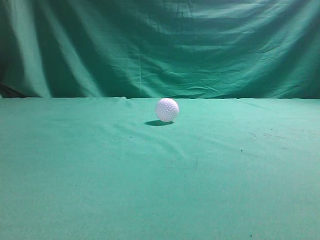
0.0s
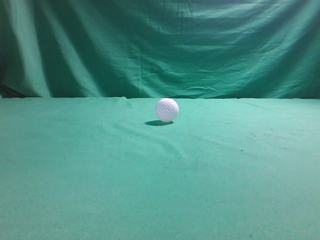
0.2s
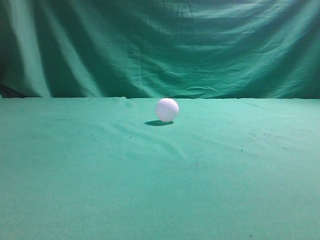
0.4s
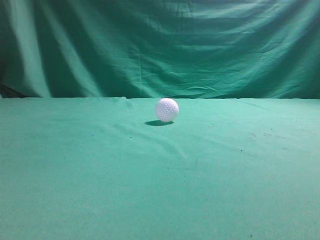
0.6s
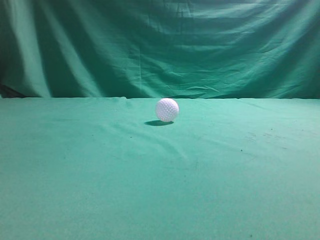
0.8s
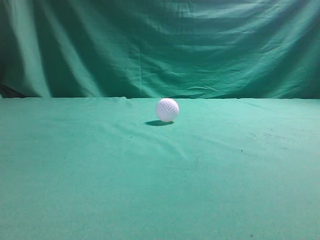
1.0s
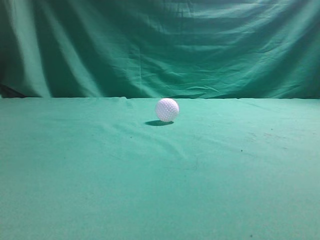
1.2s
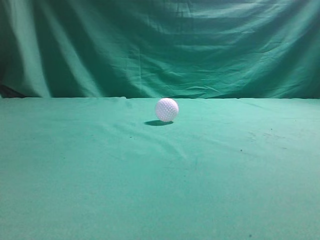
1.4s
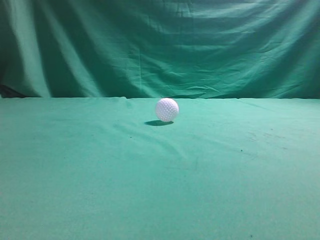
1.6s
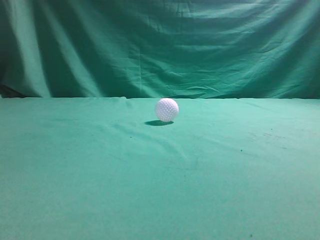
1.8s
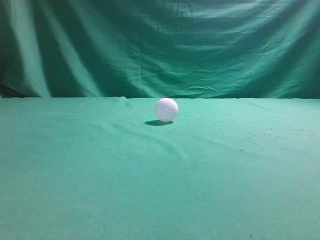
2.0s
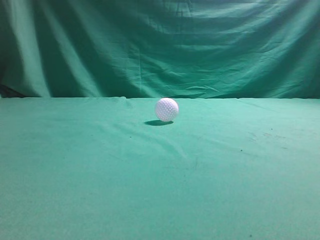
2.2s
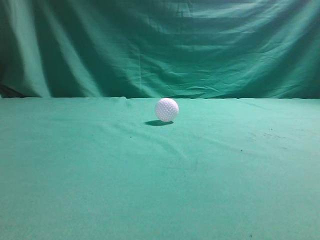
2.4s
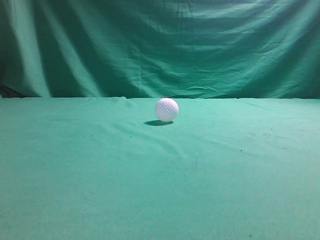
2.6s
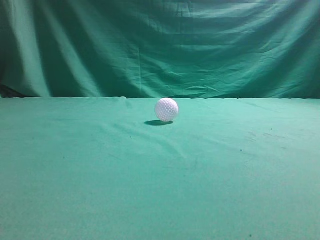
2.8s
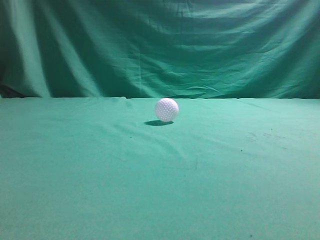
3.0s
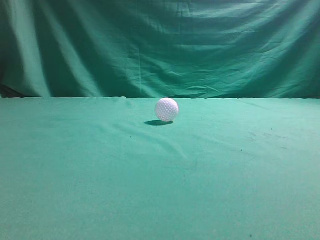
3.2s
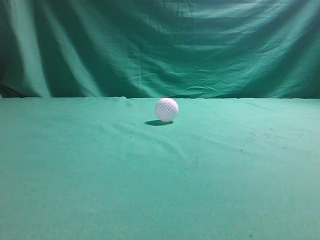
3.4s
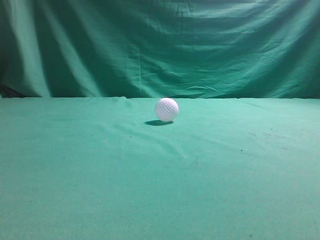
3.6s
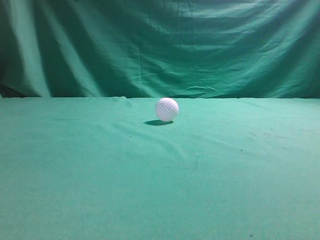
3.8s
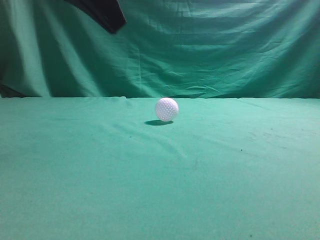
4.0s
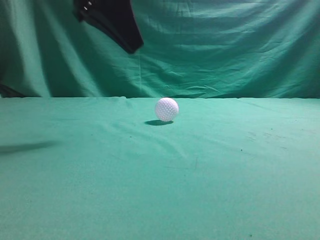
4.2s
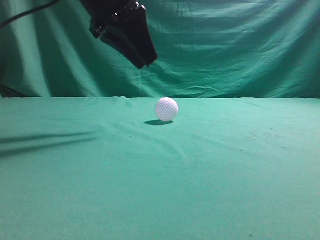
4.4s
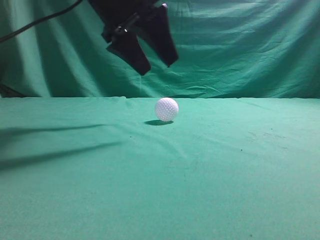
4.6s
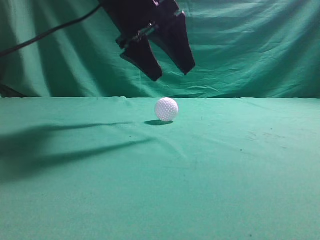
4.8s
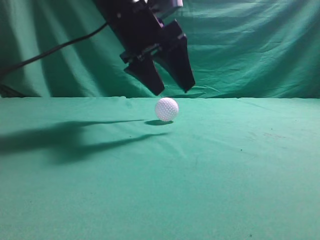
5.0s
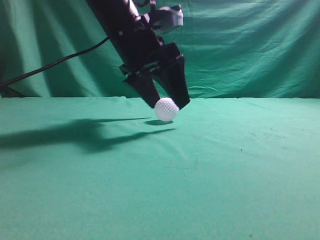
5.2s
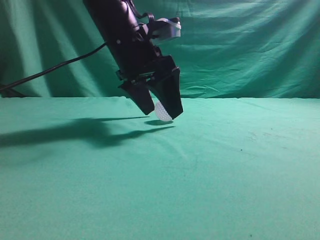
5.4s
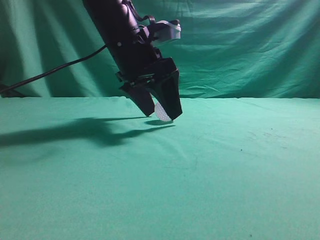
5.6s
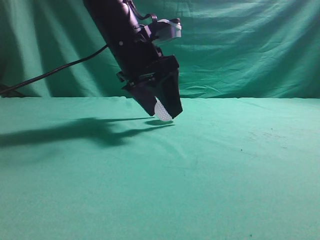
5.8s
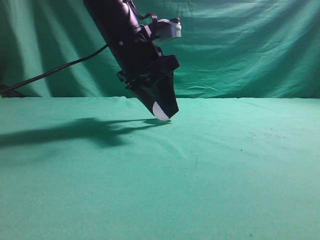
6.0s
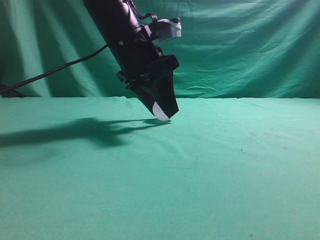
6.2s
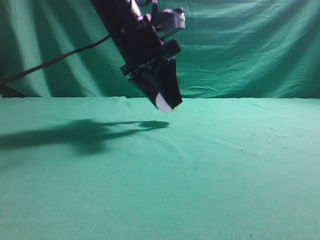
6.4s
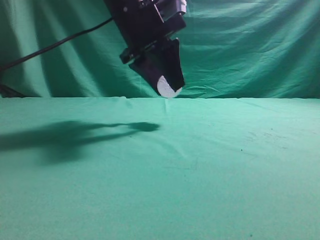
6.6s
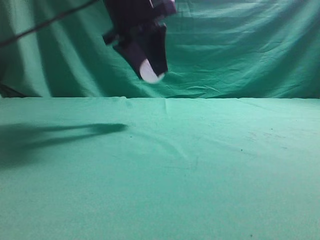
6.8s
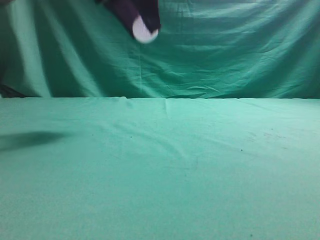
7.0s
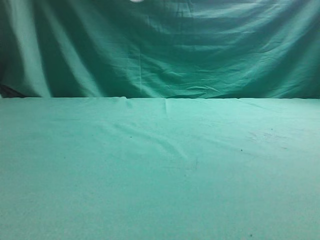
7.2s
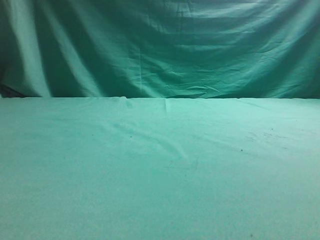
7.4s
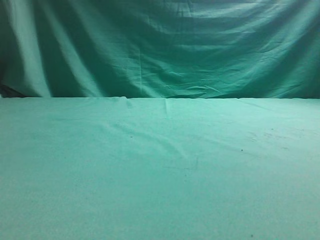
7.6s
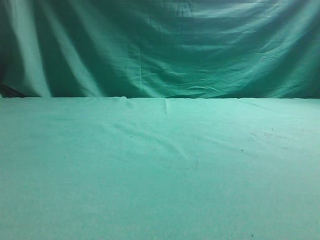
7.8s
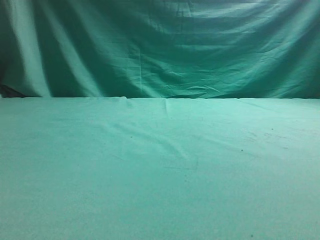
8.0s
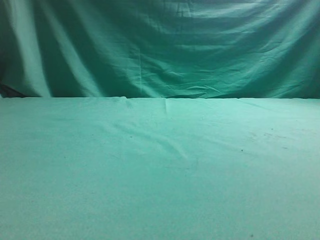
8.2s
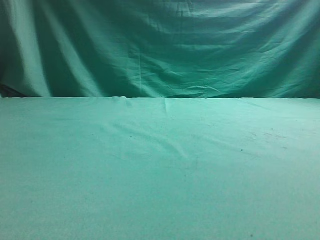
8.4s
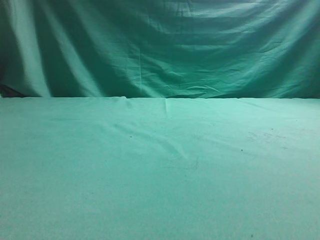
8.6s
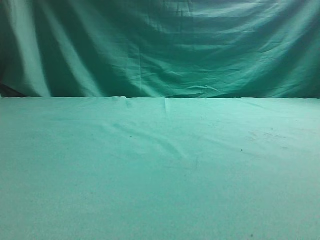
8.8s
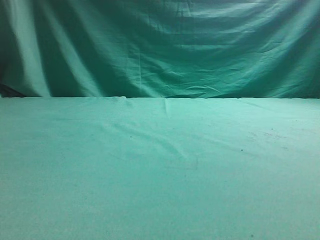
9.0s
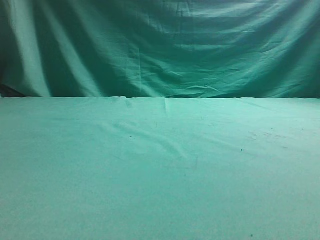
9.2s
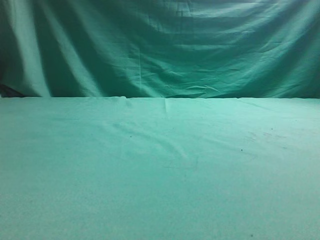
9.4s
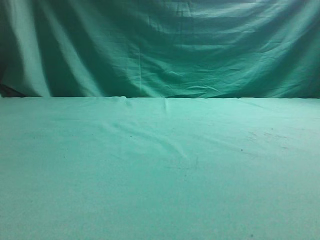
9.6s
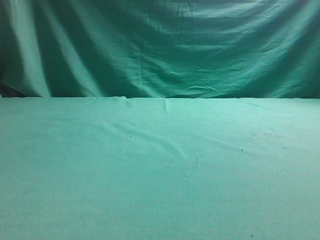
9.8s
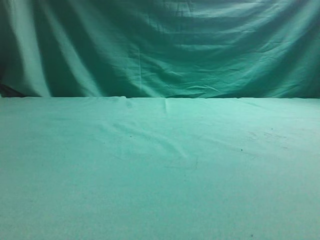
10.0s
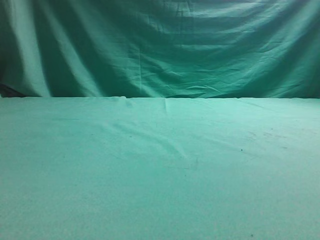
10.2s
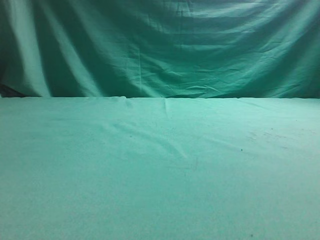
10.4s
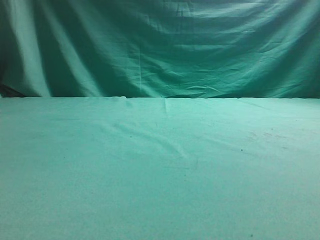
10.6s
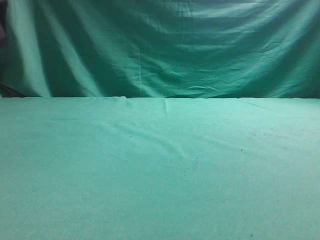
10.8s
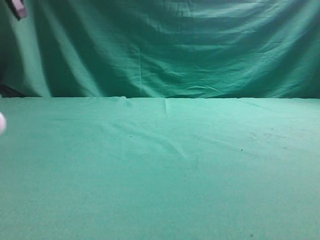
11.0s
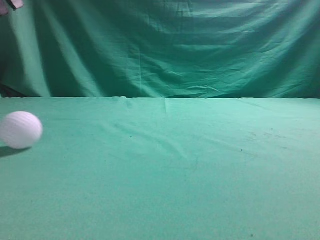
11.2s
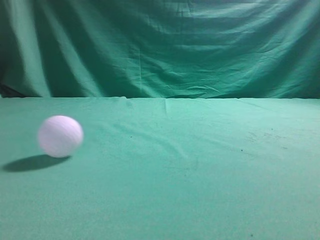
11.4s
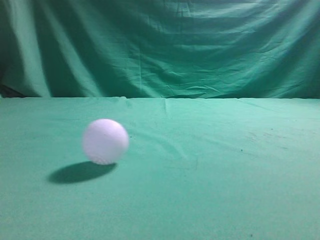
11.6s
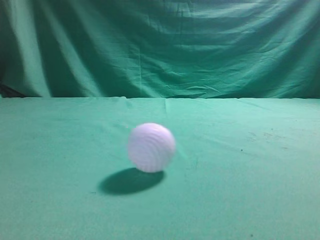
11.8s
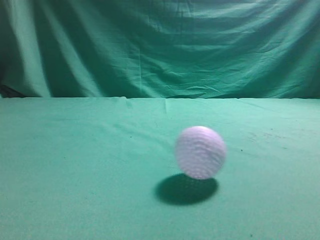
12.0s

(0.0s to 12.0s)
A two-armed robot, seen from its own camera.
Task of the whole recording: pick up the ball and place it on the plate, then pick up the ball from the plate and put it in the center of the table.
Step, 0.0s - 6.4s: Grab the spherical object with your left arm.
Step, 6.8s - 10.4s: Place the sphere on the white object.
3.0s - 4.4s: The left gripper moves forward and to the right, some 35 cm.
4.4s - 6.0s: The left gripper travels downward by approximately 5 cm, and opens, then closes again.
6.0s - 7.6s: The left gripper goes some 25 cm upward, to the left and backward.
10.4s - 12.0s: The right gripper changes place by about 5 cm. Meanwhile the left gripper moves upward and backward, approximately 20 cm, and closes.

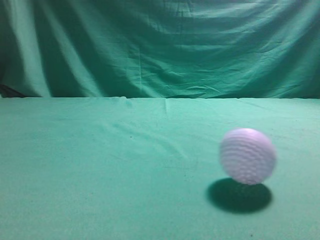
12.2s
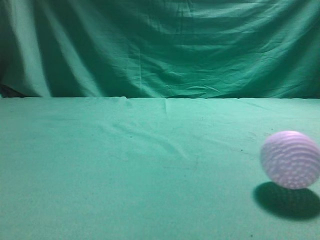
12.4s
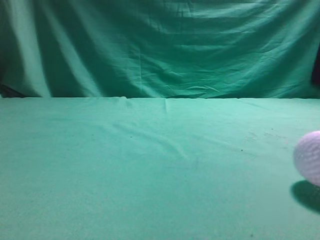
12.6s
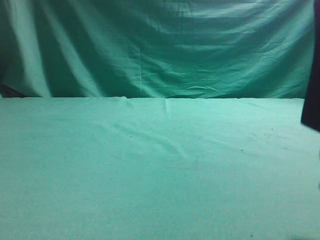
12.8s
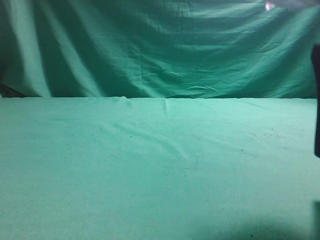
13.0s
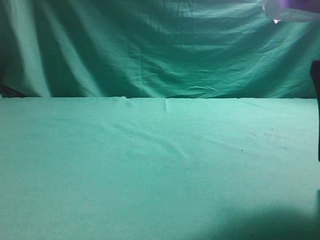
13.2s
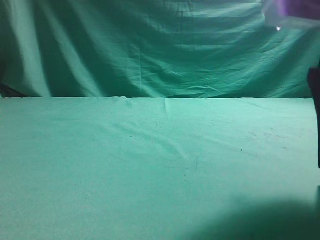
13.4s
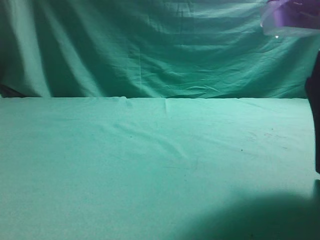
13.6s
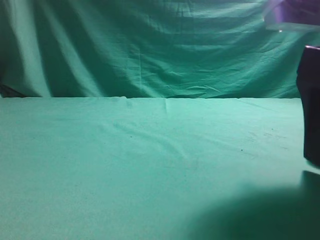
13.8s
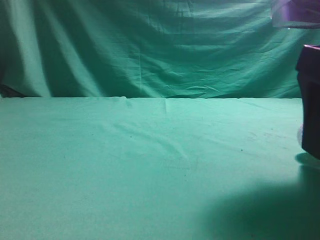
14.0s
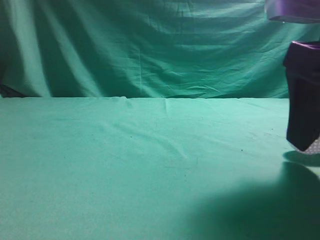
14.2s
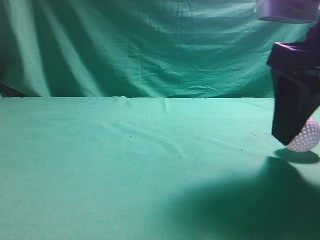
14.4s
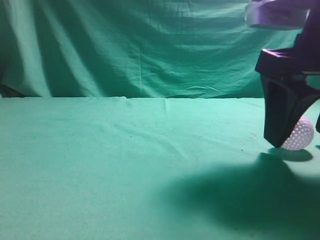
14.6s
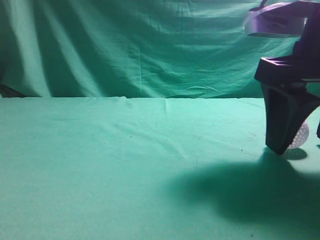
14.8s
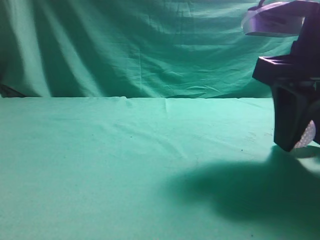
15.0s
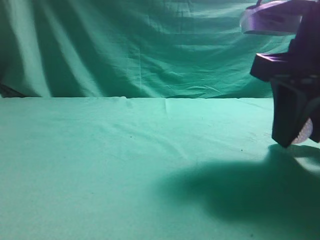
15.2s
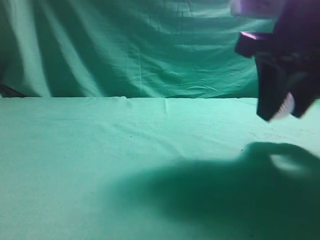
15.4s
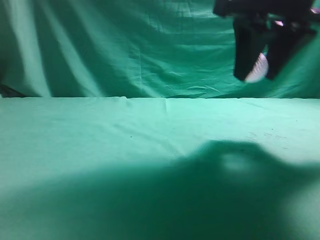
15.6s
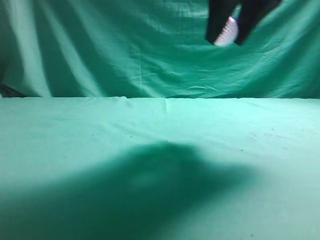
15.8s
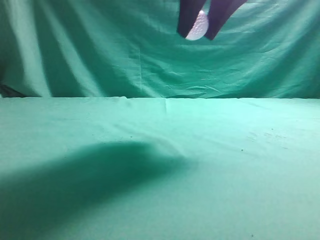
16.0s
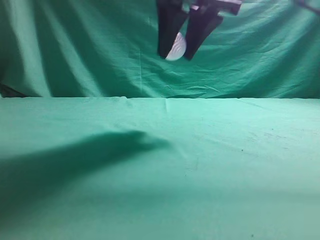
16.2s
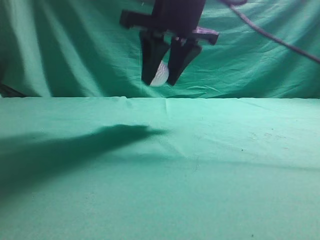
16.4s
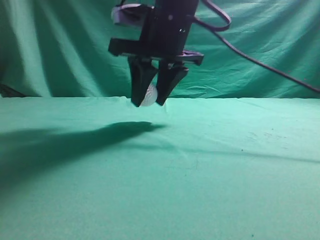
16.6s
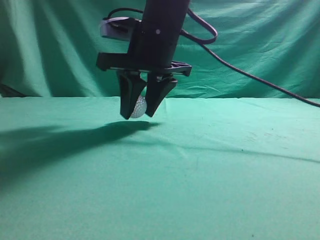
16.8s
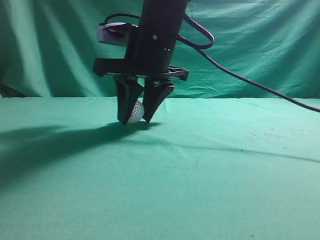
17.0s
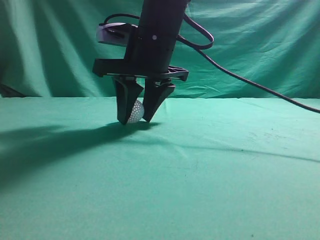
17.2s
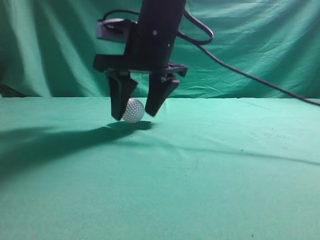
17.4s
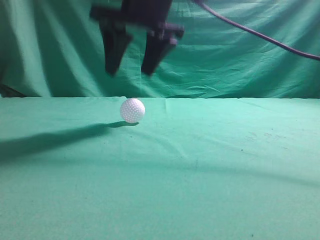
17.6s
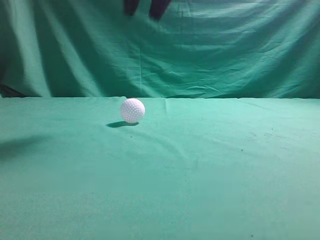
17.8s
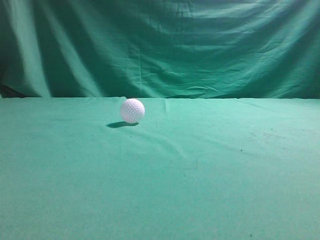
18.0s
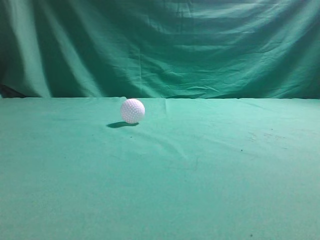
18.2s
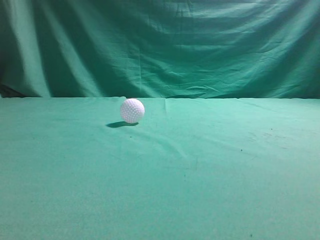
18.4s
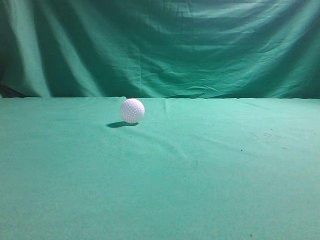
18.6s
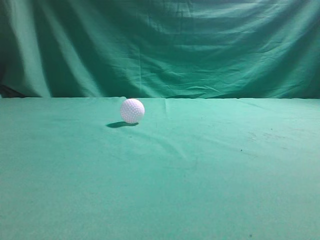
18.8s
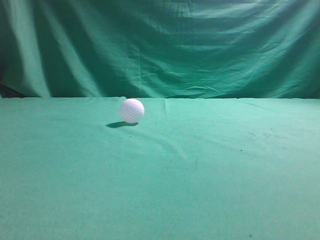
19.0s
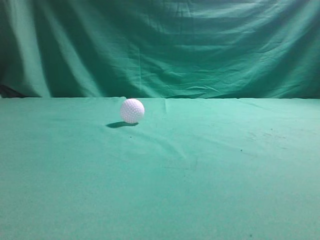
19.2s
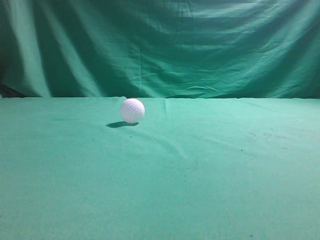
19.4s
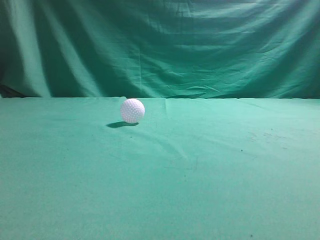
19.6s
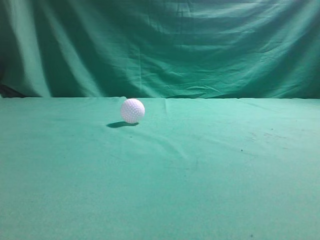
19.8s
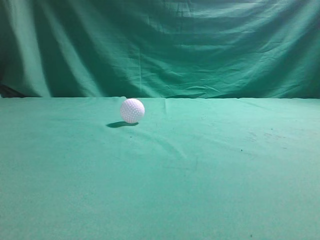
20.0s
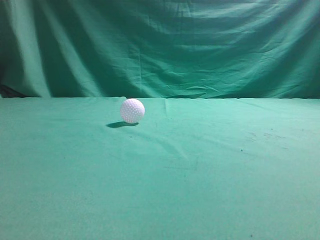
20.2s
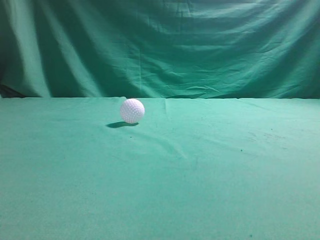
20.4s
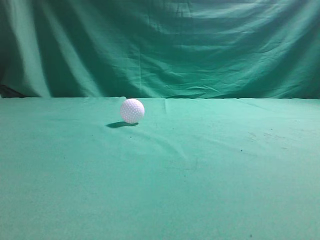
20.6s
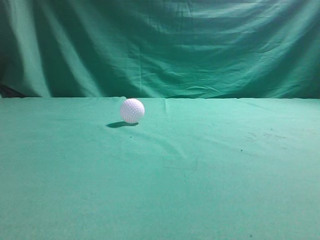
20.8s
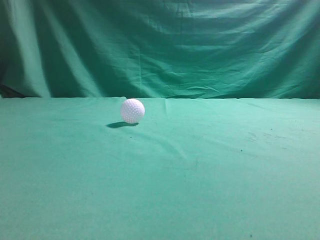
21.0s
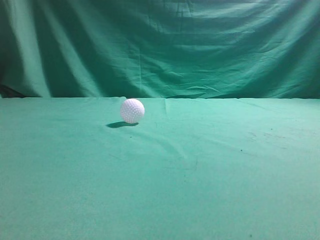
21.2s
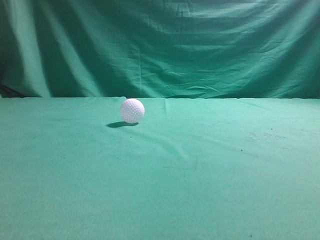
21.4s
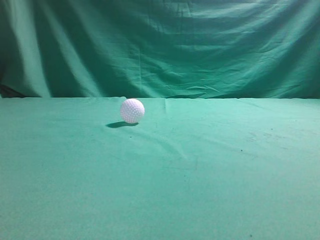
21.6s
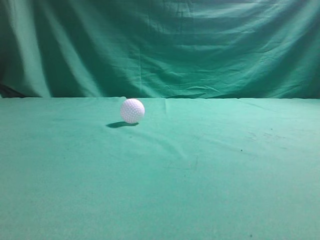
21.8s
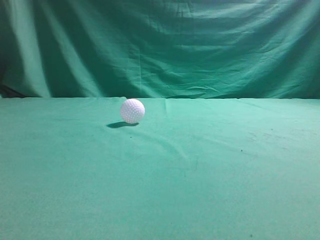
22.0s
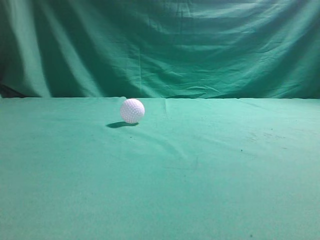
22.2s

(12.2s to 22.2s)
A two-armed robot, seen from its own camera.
Task of the whole recording: pick up the ball and place it on the plate, then pick up the ball from the plate and put it in the center of the table.
Step, 12.2s - 15.4s: Grab the rolling spherical object.
Step, 15.6s - 17.4s: Put the picked-up object on the table.
12.2s - 13.6s: The left gripper shifts some 5 cm backward. The right gripper heads downward and forward, covering approximately 10 cm, and opens up.
13.6s - 15.0s: The right gripper shifts roughly 5 cm forward.
15.0s - 16.4s: The right gripper travels to the left, forward and upward by about 20 cm.
16.4s - 18.0s: The right gripper moves upward, some 15 cm, and closes up.
